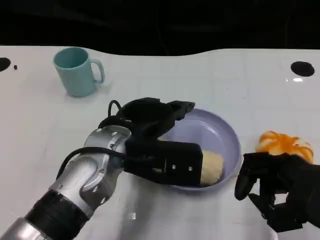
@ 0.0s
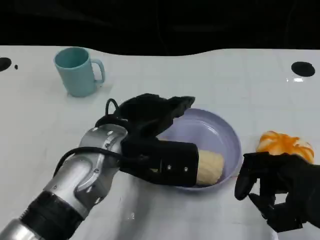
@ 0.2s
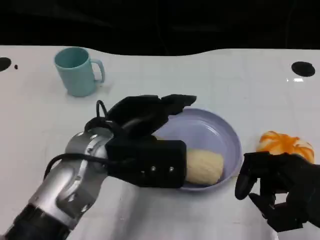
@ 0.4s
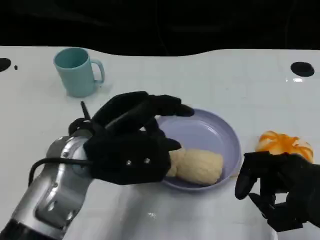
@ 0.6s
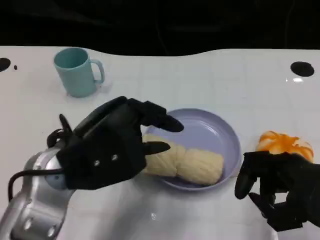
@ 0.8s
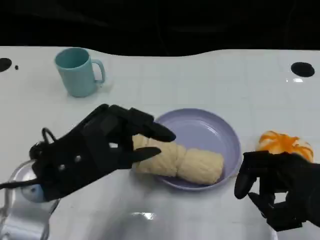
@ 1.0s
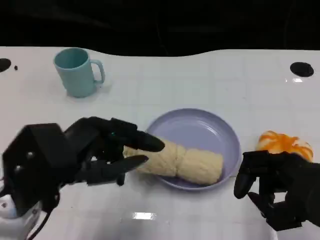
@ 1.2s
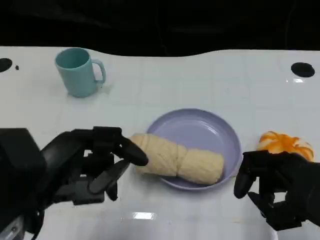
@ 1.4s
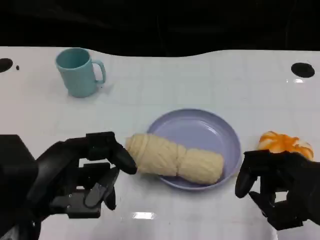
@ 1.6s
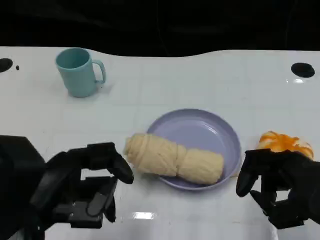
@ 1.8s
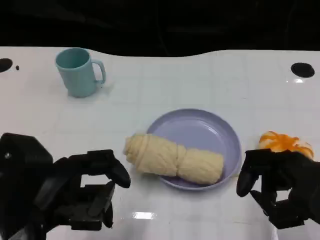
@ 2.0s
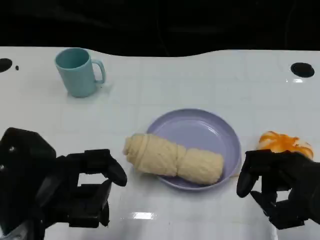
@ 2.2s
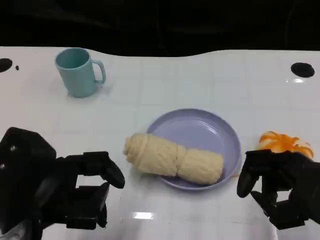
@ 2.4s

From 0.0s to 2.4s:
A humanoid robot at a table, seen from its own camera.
Task of the whole recording: Grasp the towel on the left side of the plate with the left hand and place it into the plate.
From 0.0s to 1.2s: The left hand is displaced to the left and backward by approximately 15 cm.

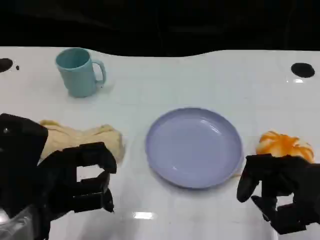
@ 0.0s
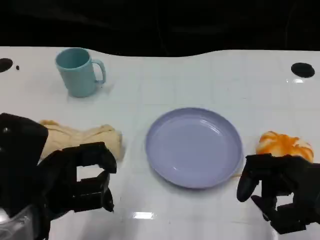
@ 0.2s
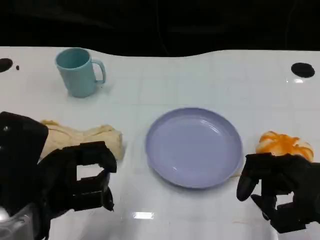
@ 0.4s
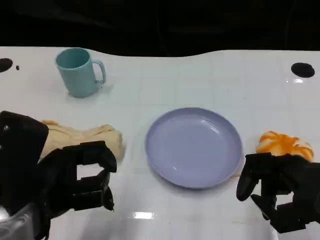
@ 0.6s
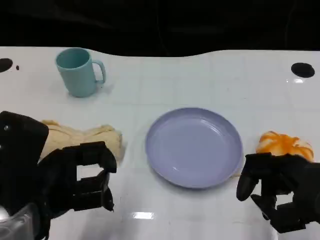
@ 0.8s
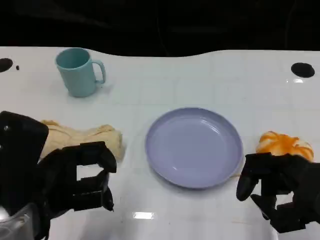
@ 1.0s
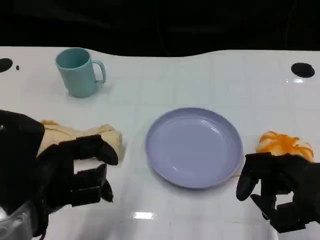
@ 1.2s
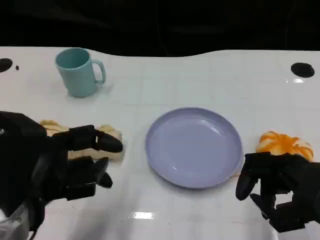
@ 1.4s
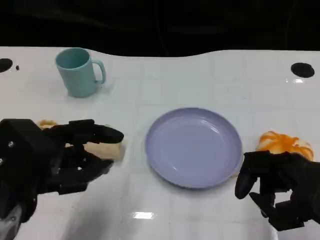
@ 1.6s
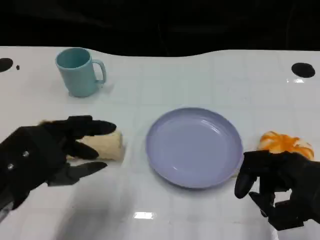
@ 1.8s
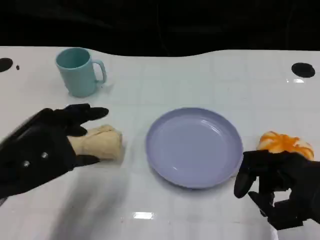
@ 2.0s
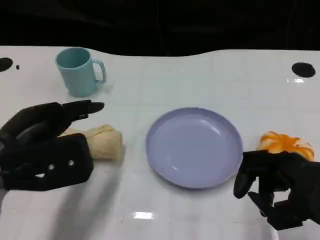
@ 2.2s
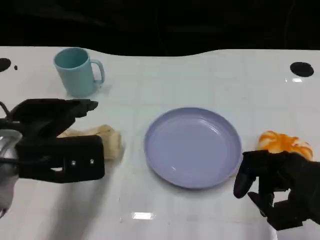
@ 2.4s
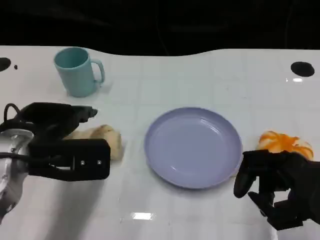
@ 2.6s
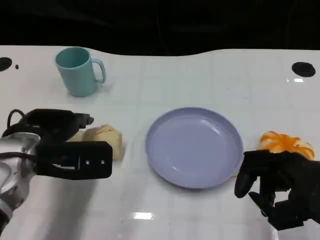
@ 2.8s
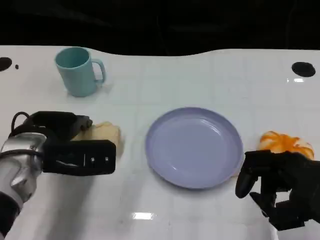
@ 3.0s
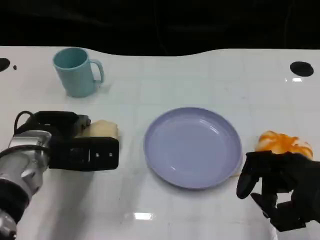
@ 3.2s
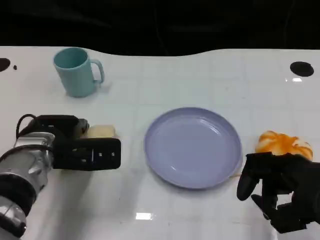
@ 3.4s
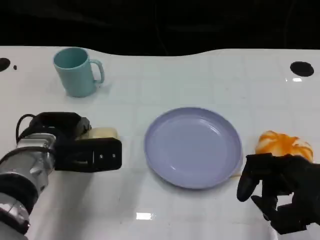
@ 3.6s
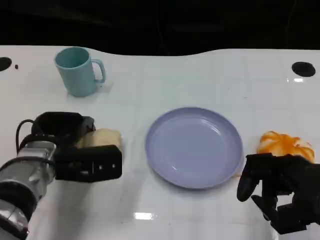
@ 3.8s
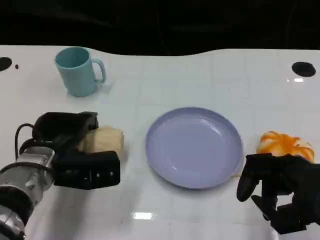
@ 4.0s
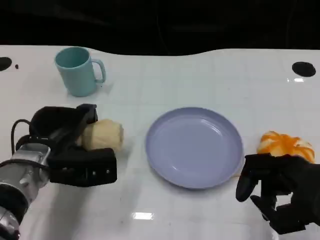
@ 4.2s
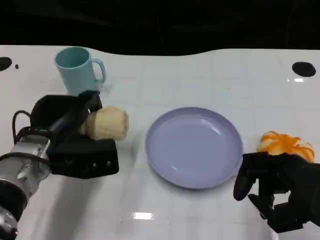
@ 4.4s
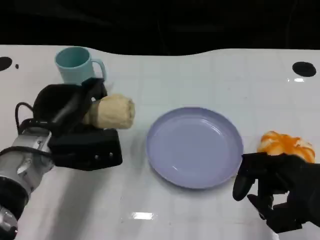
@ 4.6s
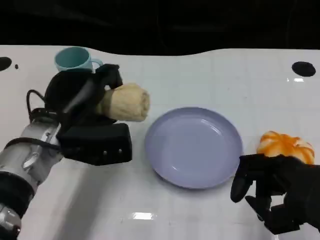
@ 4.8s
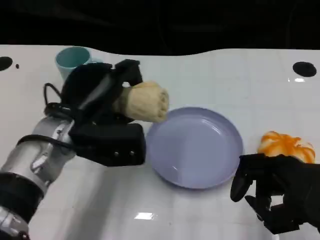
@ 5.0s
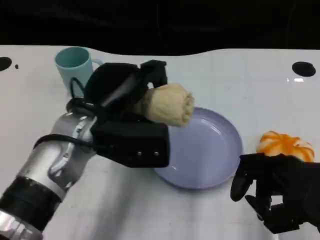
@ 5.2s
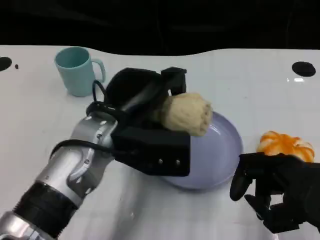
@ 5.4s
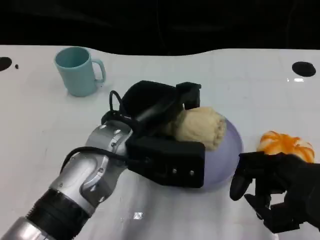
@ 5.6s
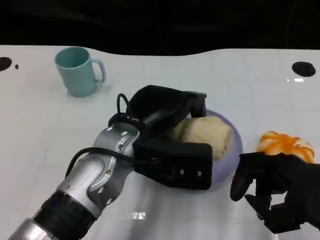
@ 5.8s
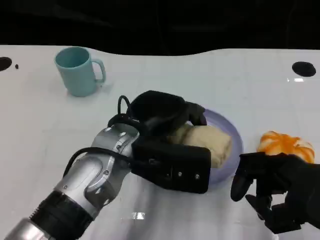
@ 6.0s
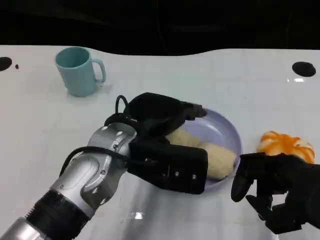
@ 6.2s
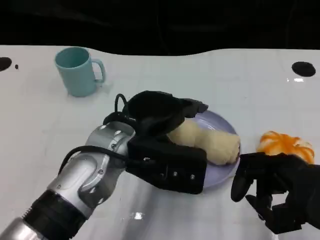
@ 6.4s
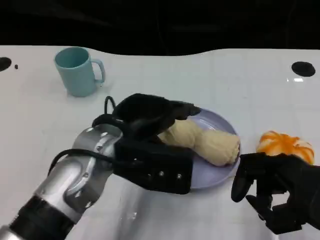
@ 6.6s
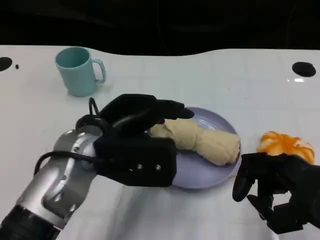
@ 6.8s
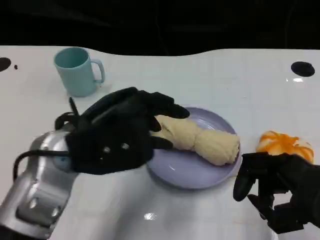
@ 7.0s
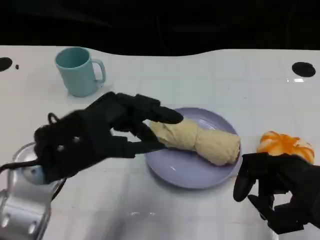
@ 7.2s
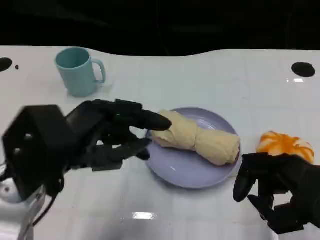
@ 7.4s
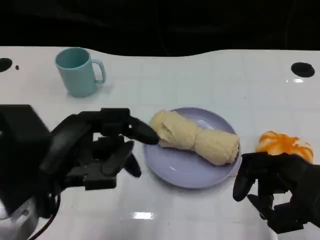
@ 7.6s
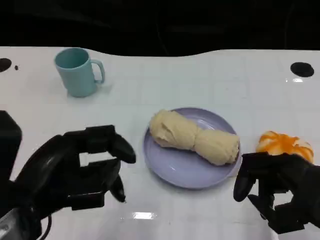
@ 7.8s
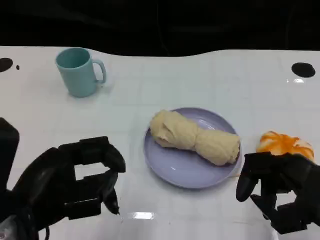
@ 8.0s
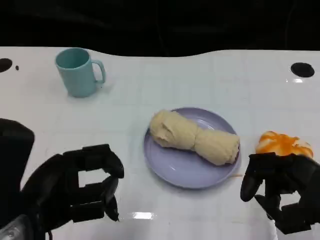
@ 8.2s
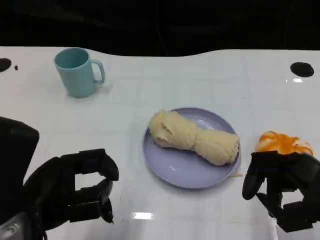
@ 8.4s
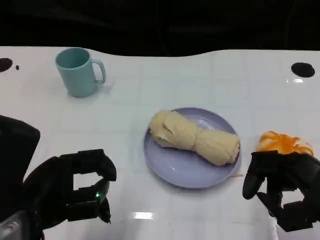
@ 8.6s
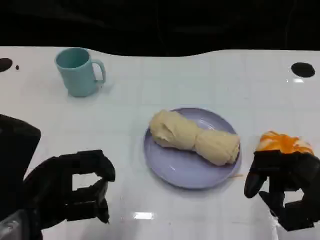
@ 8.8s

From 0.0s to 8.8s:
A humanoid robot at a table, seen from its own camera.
Task of the whole recording: Grasp the towel on the left side of the plate with the left hand and place it into the plate.
From 0.0s to 1.4s: The hands move only a little.
From 1.4s to 3.0s: The left hand moves forward, about 10 cm.
From 4.4s to 5.8s: The left hand travels to the right and upward by approximately 15 cm.
From 5.8s to 7.4s: The left hand travels to the left and backward by about 15 cm.
